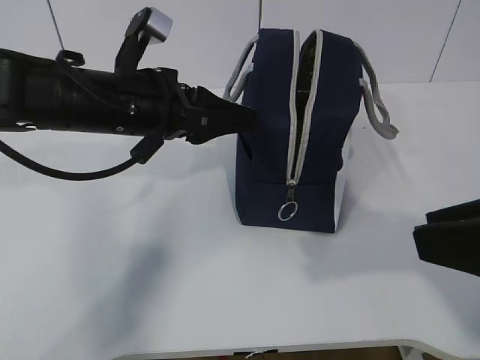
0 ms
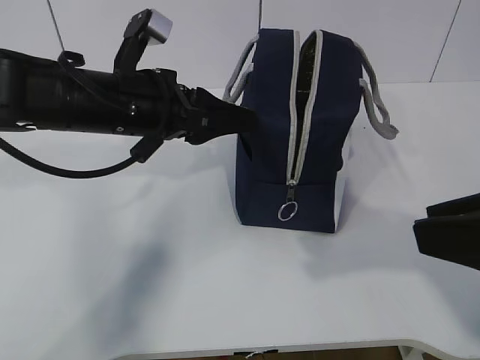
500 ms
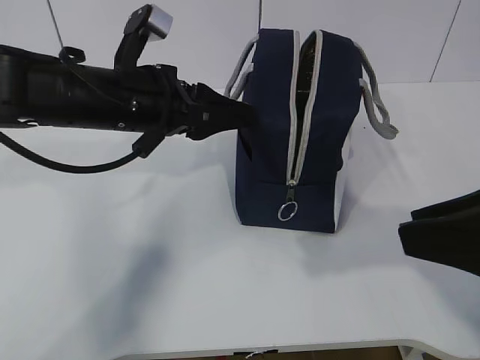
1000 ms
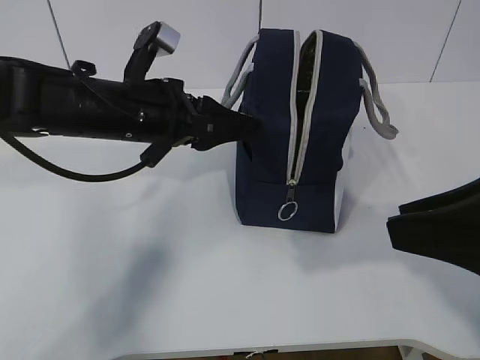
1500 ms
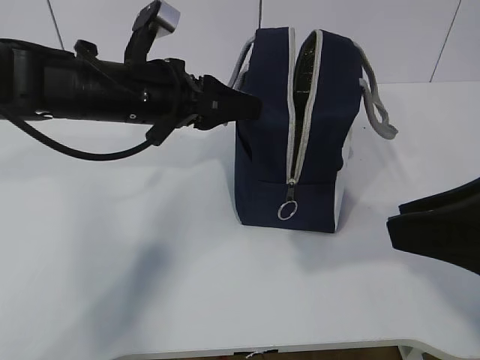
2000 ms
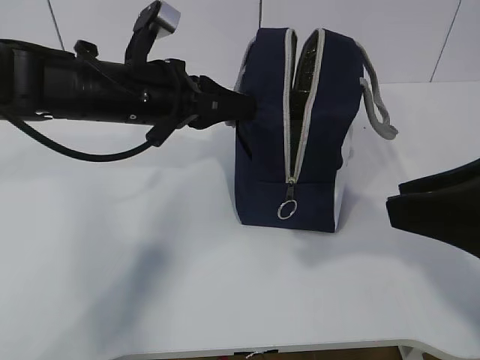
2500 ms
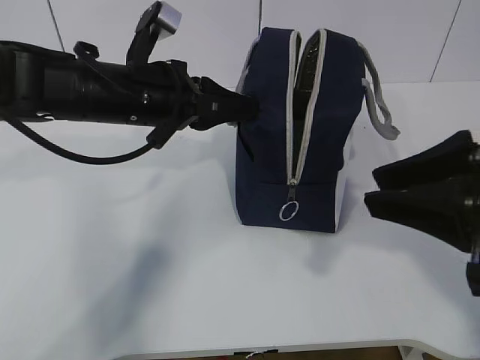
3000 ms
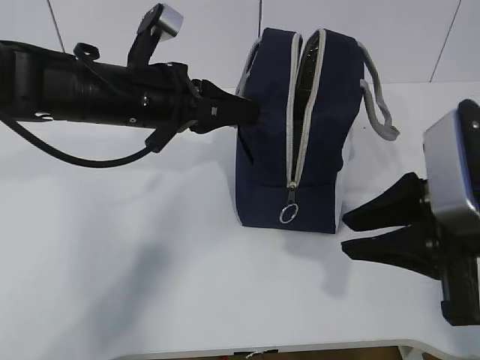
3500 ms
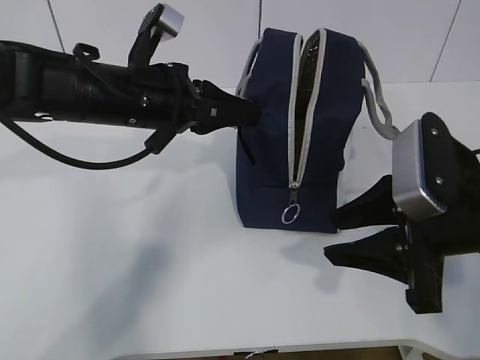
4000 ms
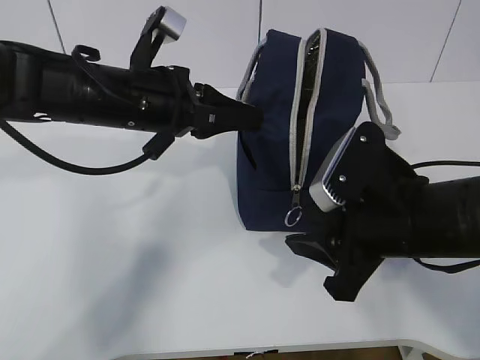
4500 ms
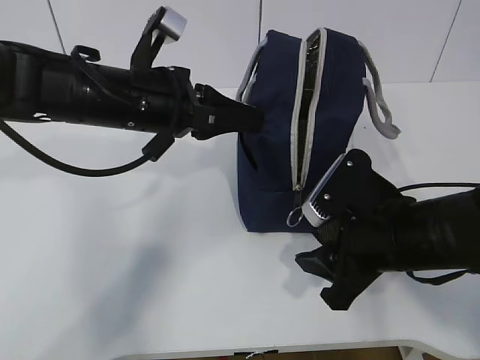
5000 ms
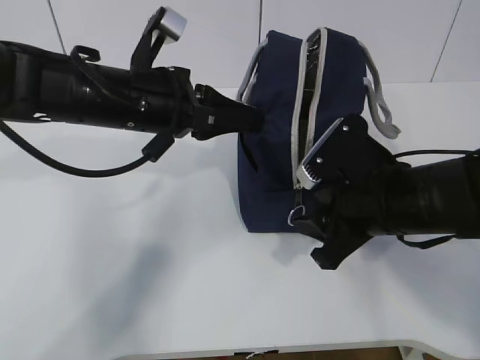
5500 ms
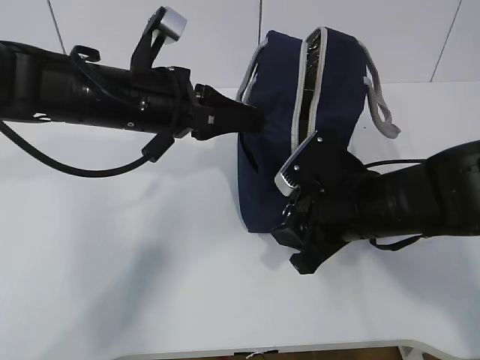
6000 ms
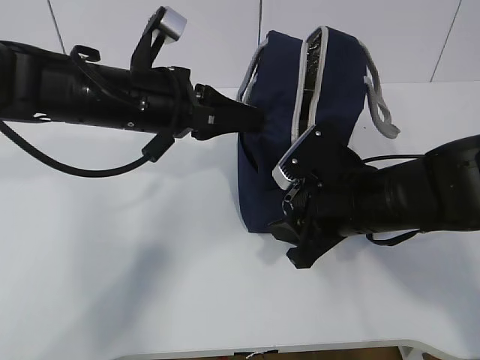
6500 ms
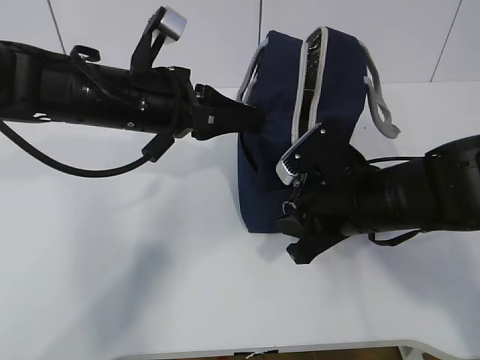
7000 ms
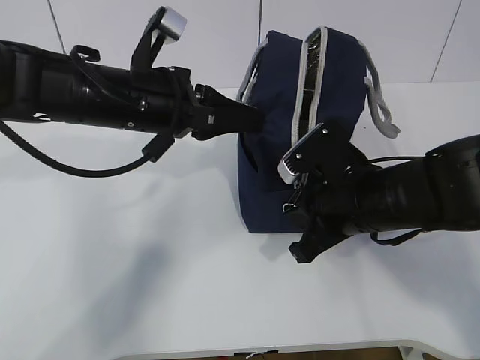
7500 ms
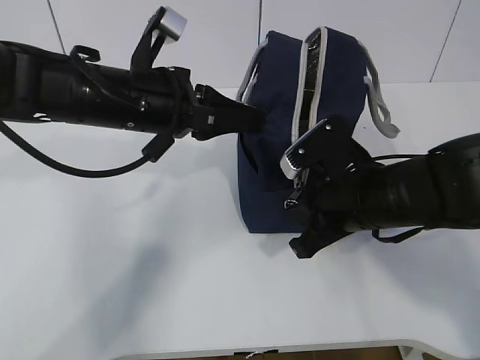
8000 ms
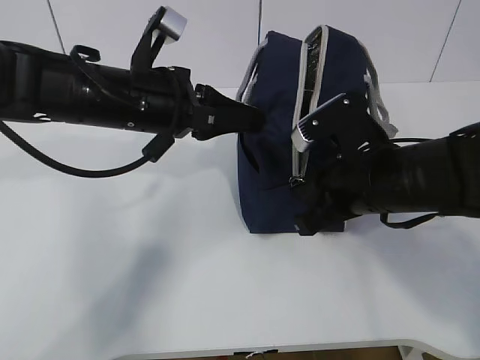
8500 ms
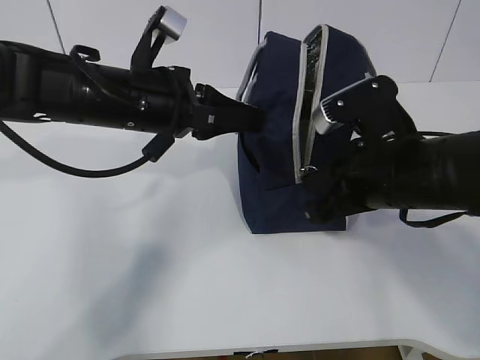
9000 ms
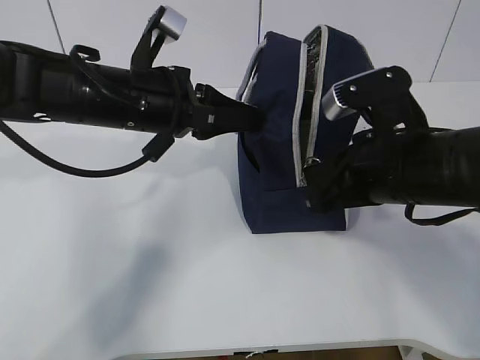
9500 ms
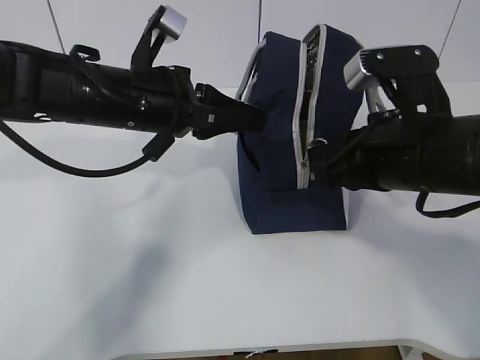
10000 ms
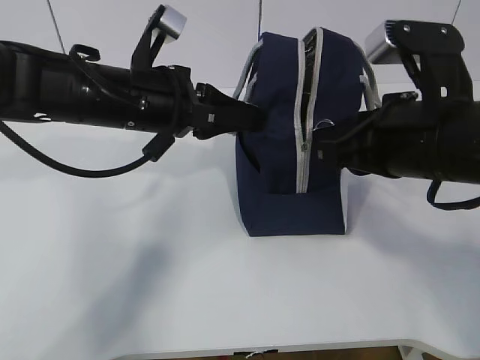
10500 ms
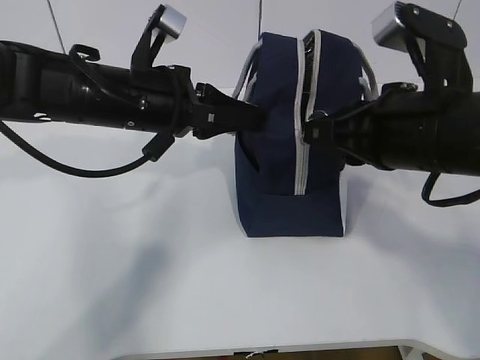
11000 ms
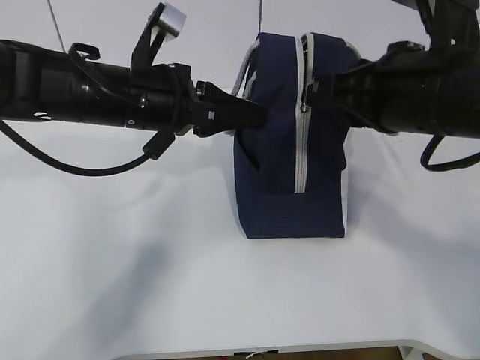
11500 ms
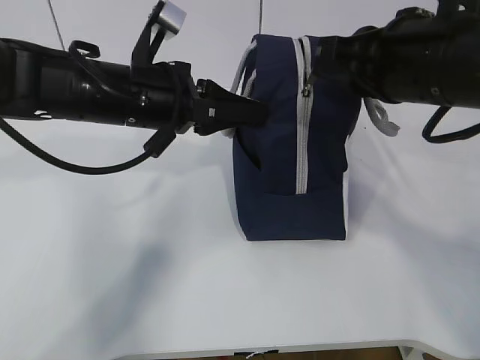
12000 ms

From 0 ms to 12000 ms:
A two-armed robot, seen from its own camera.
Step, from 0 ms to 7000 ms: Pull the zipper with your right hand.
From 0 ms to 2000 ms: There are only small adjustments of the grippers.
From 2000 ms to 4000 ms: The left gripper closes; the right gripper is displaced forward and downward by about 10 cm.
From 4000 ms to 6000 ms: The right gripper heads to the left, forward and downward, covering approximately 10 cm.
From 6000 ms to 8000 ms: The right gripper closes its fingers.
From 8000 ms to 10000 ms: The right gripper is displaced upward by roughly 5 cm.
From 10000 ms to 12000 ms: The right gripper moves upward, about 5 cm.

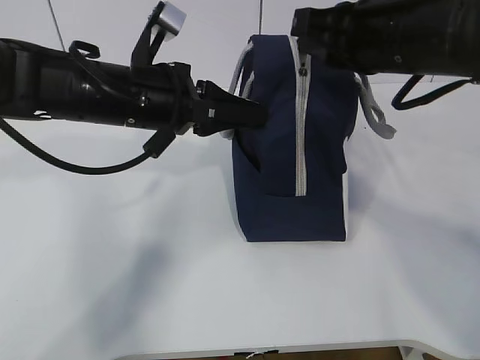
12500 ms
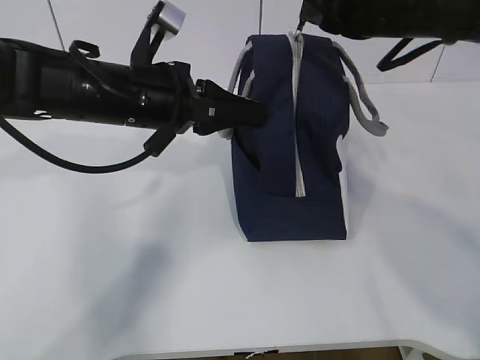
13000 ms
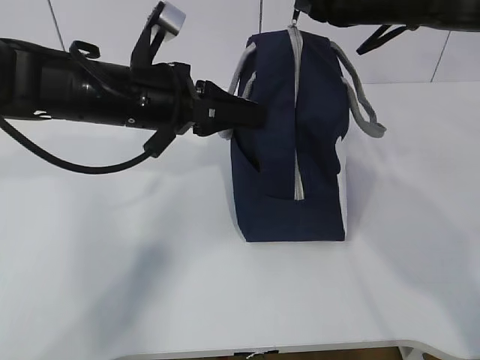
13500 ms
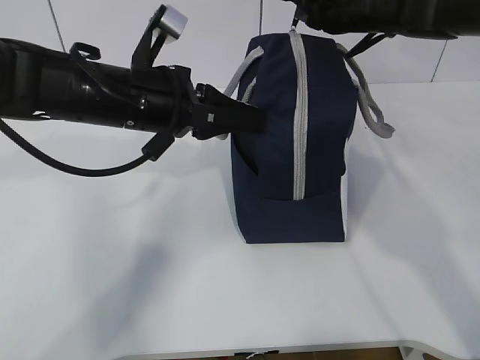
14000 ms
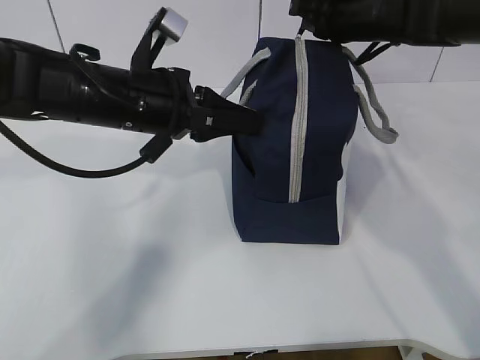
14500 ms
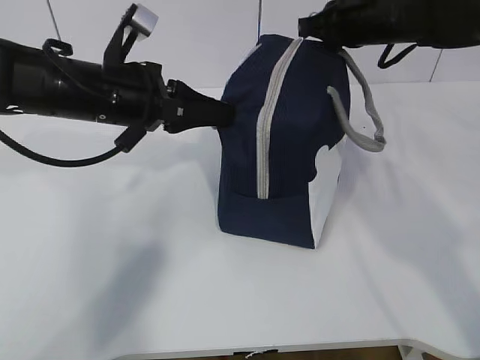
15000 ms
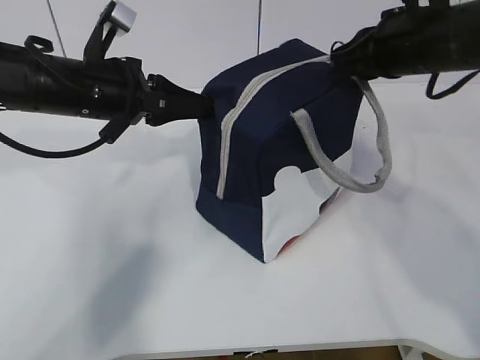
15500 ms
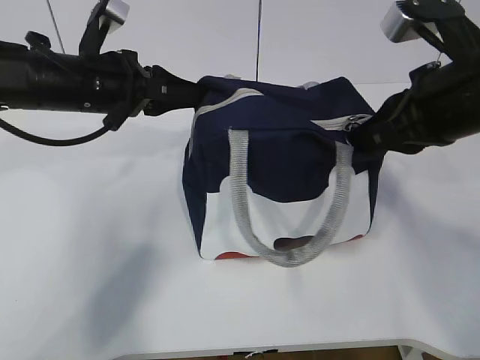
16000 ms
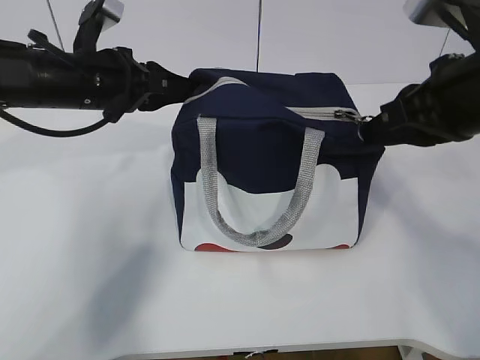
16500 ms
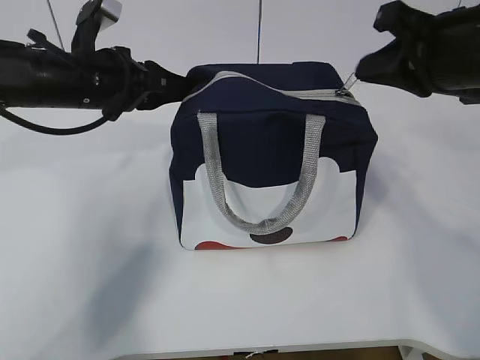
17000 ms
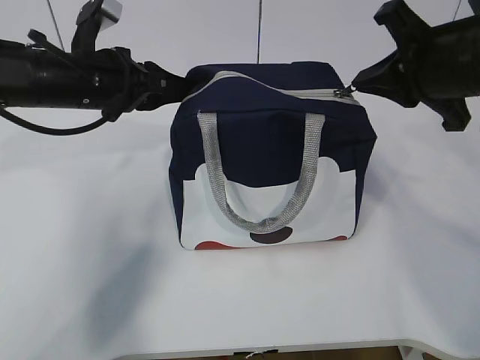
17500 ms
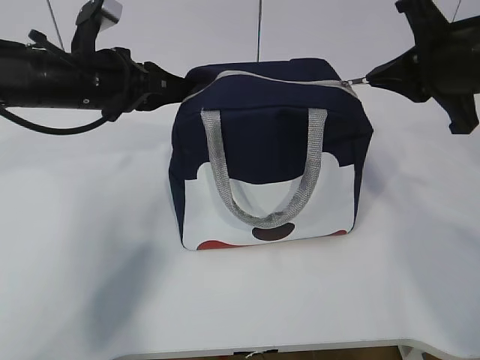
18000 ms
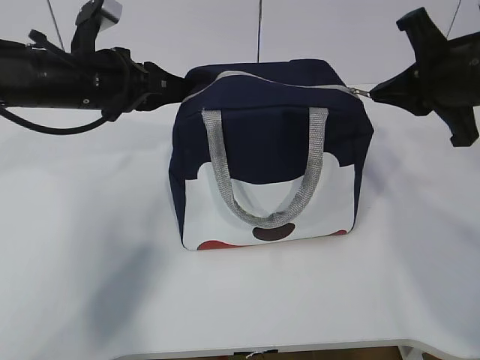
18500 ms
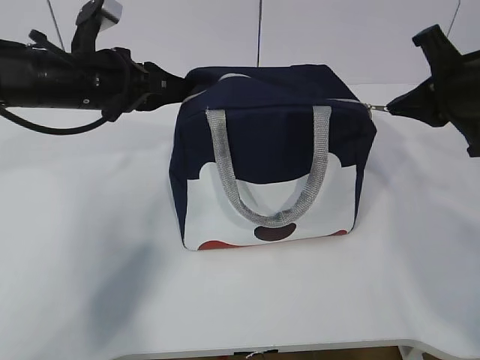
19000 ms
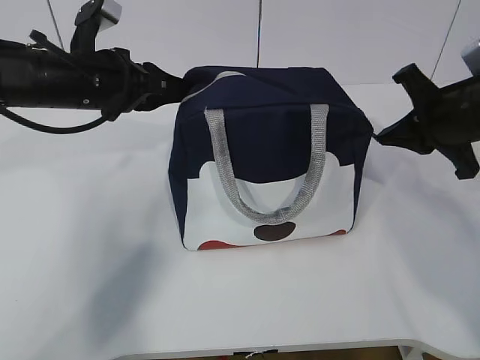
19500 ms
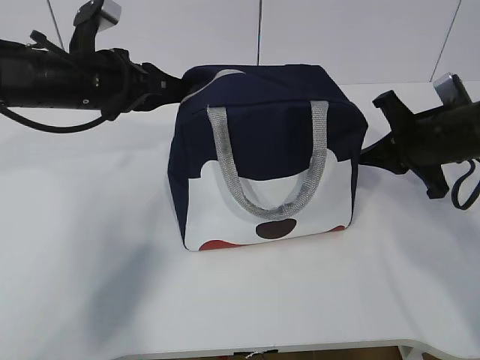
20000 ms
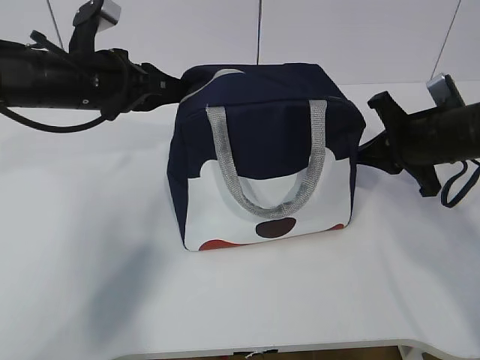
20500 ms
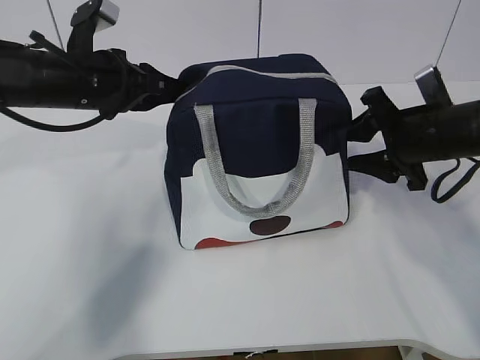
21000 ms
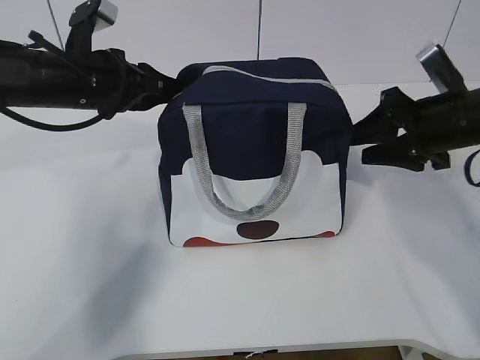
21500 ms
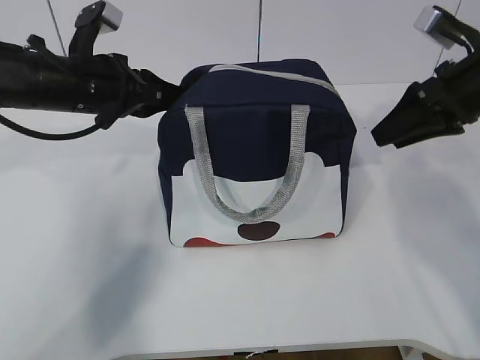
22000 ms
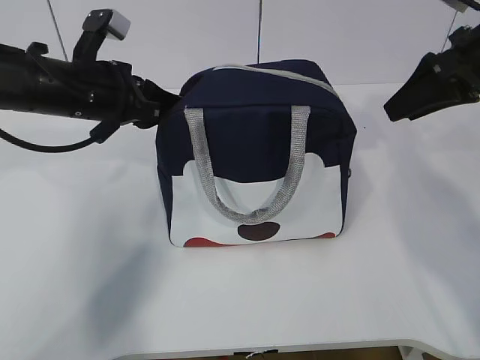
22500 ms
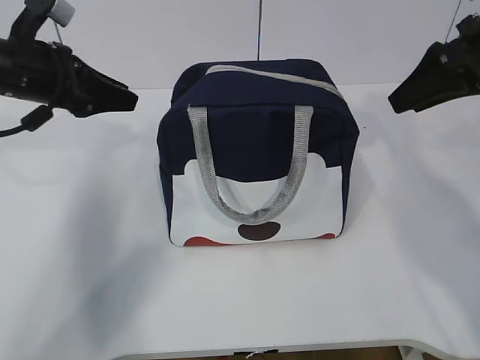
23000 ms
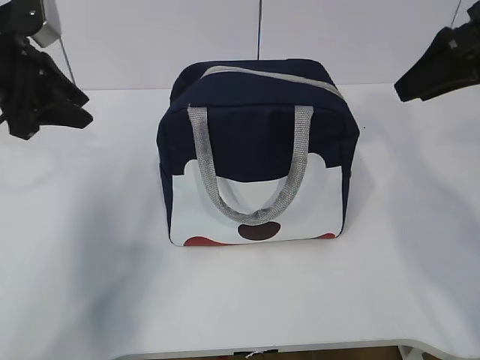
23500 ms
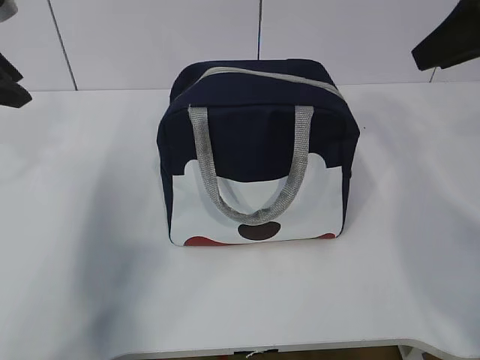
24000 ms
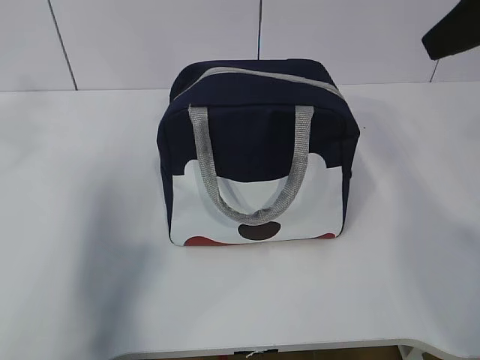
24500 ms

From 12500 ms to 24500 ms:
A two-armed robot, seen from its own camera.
From 12500 ms to 14500 ms: The right gripper travels forward by some 15 cm.
From 14500 ms to 16500 ms: The right gripper travels backward by roughly 20 cm. Meanwhile the left gripper travels to the left by about 5 cm.
From 16500 ms to 18500 ms: The right gripper shifts roughly 5 cm forward.
From 18500 ms to 20500 ms: The right gripper travels downward by some 10 cm.
From 20500 ms to 22500 ms: The right gripper is displaced upward by roughly 10 cm, and opens up.
From 22500 ms to 24500 ms: The left gripper shifts approximately 20 cm upward, to the left and backward; the right gripper moves upward and backward, about 15 cm.

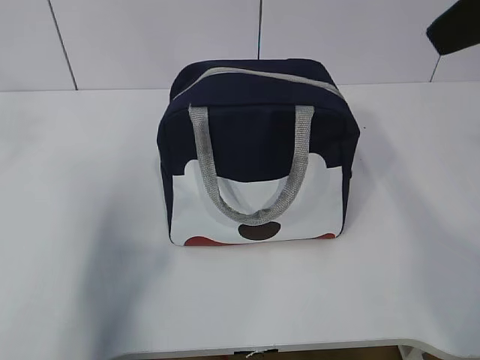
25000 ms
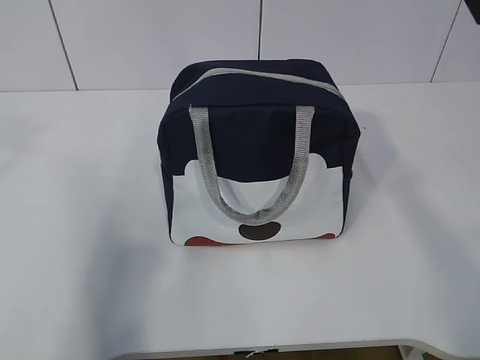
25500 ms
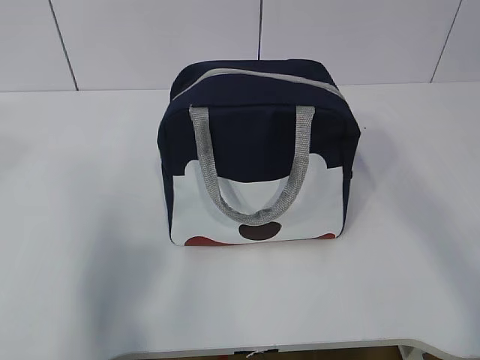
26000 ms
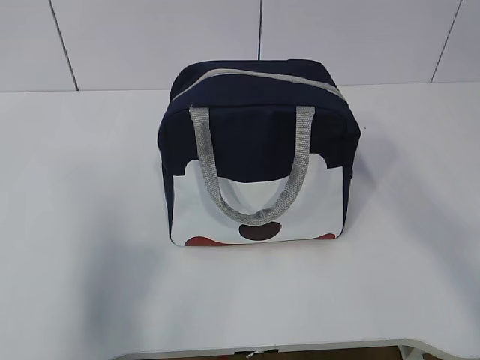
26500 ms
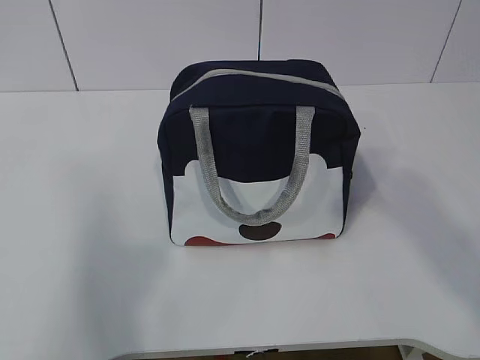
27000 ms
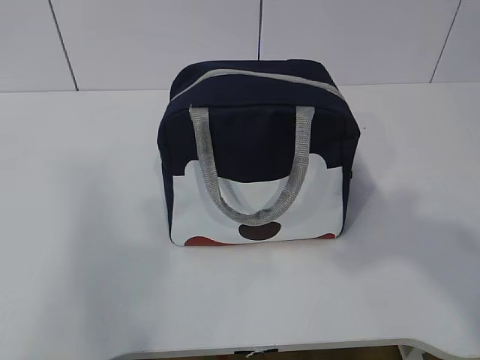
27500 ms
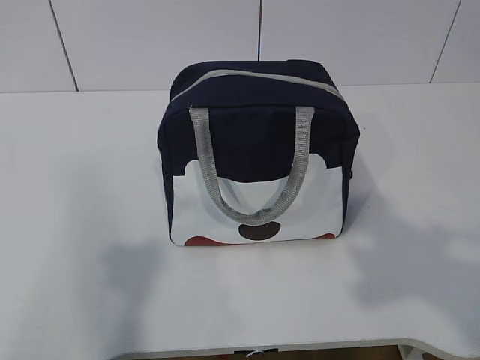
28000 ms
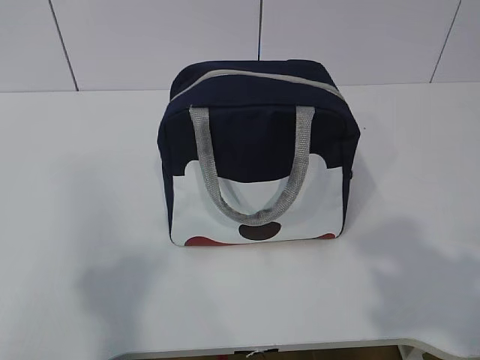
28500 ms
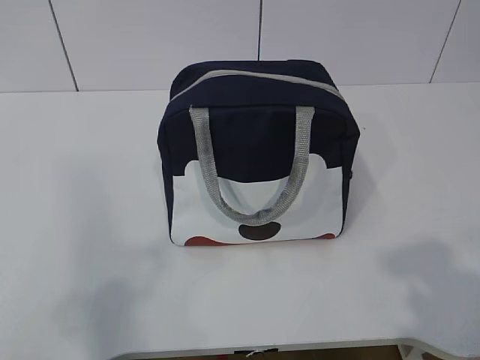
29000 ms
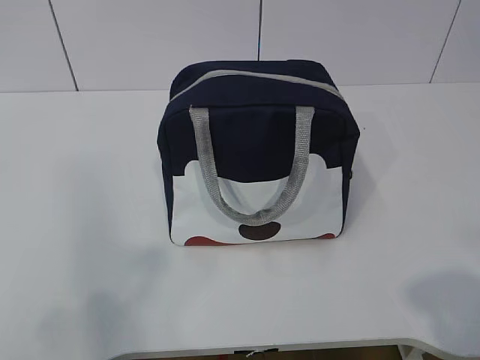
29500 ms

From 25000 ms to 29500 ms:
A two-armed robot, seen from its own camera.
From 25000 ms to 27000 ms: The grippers both shift backward by roughly 15 cm.
From 27000 ms to 29500 ms: The right gripper travels downward and backward by about 20 cm.
